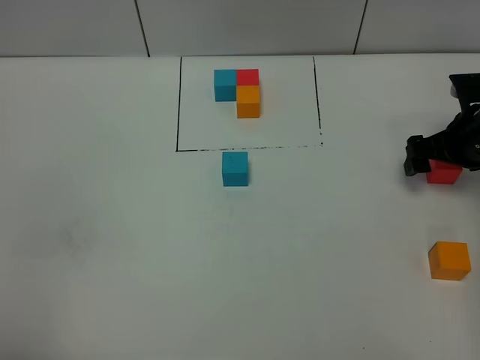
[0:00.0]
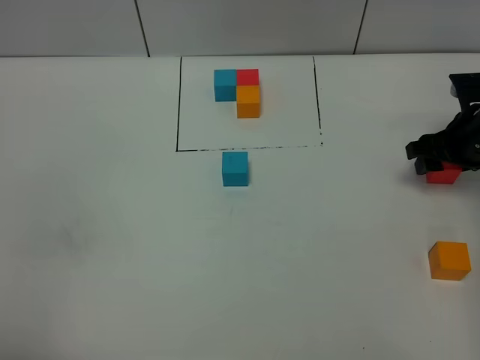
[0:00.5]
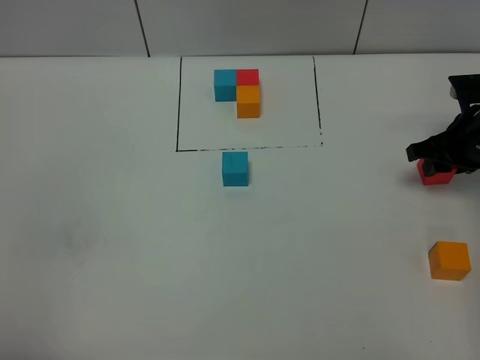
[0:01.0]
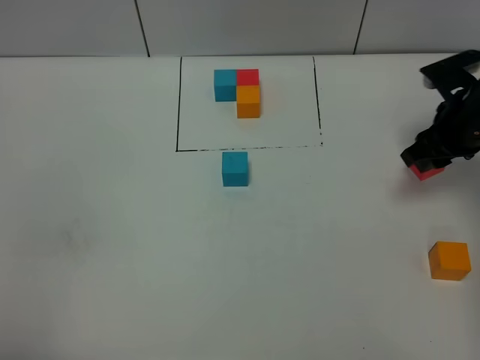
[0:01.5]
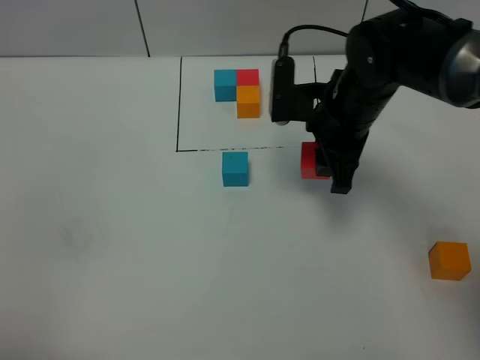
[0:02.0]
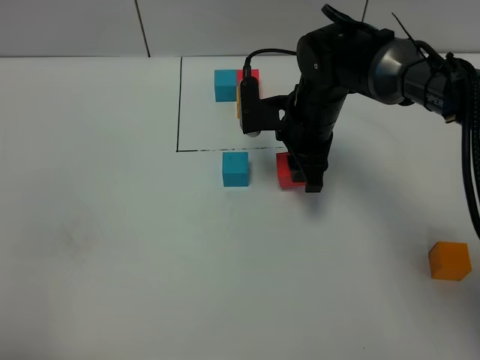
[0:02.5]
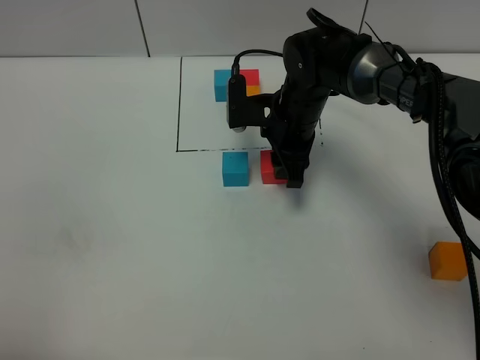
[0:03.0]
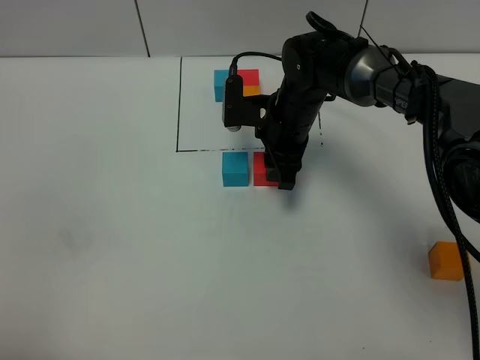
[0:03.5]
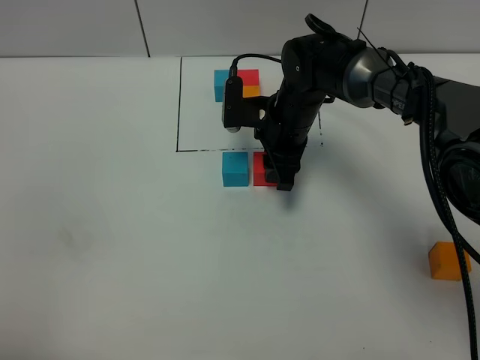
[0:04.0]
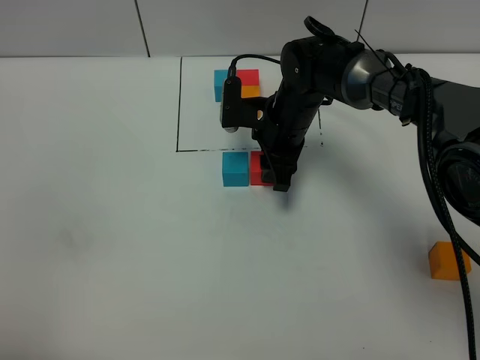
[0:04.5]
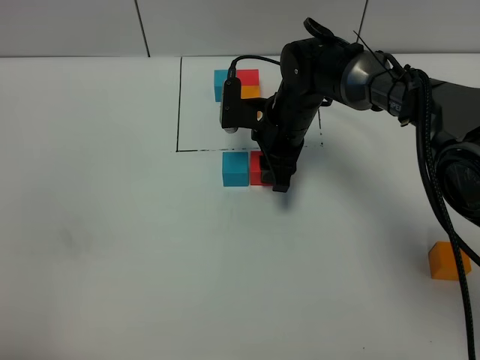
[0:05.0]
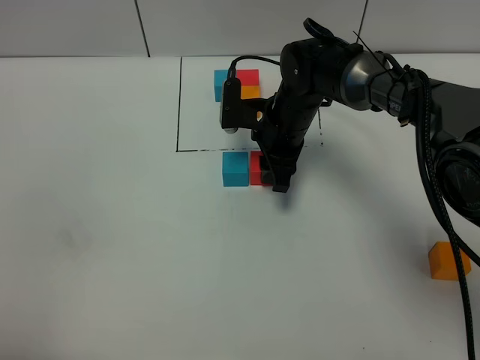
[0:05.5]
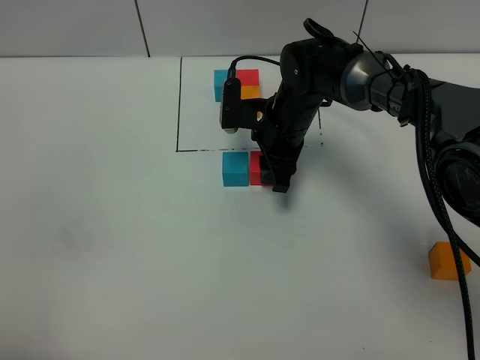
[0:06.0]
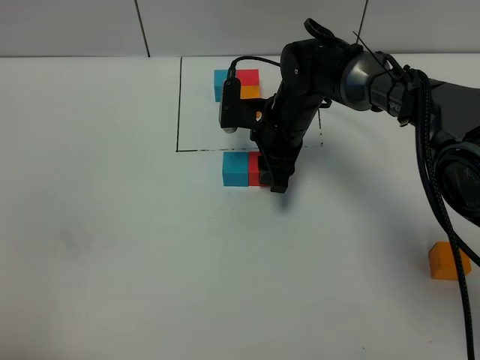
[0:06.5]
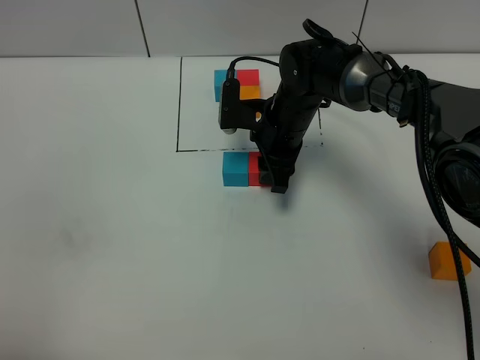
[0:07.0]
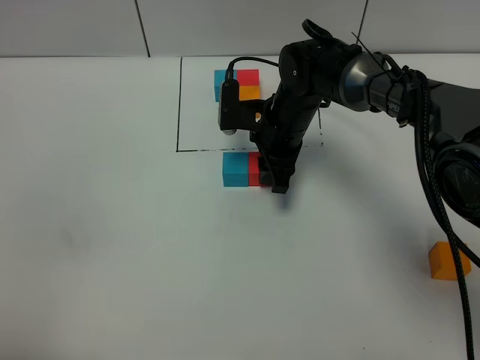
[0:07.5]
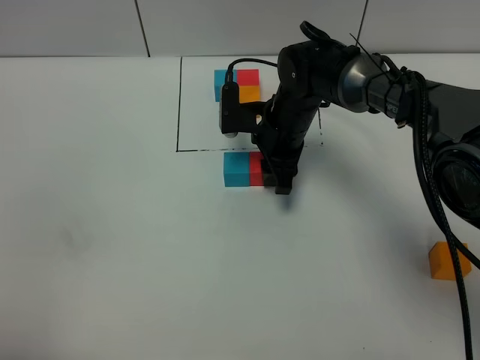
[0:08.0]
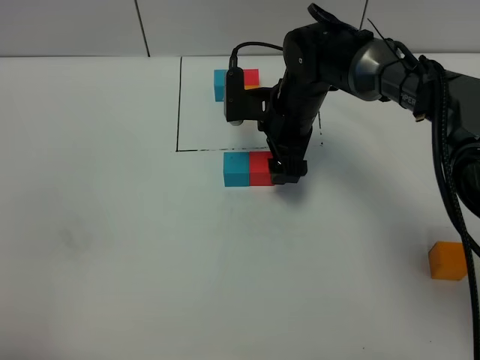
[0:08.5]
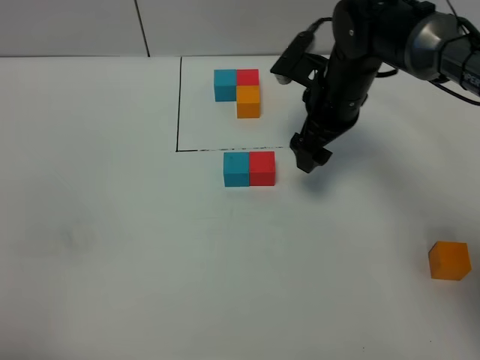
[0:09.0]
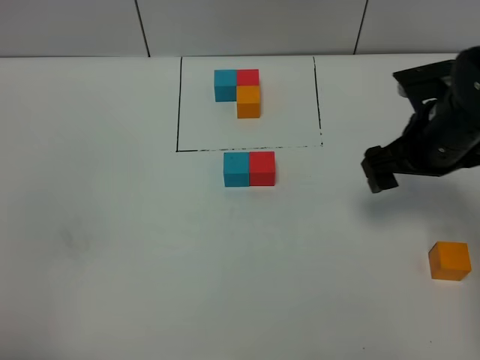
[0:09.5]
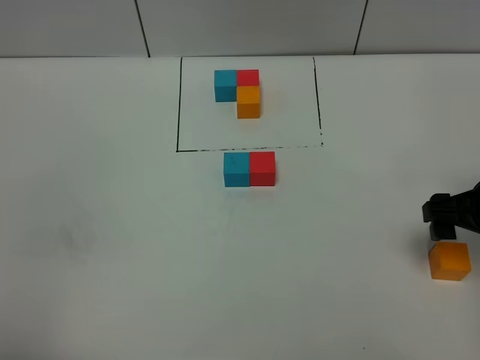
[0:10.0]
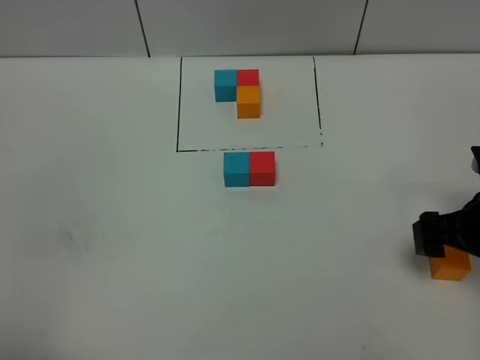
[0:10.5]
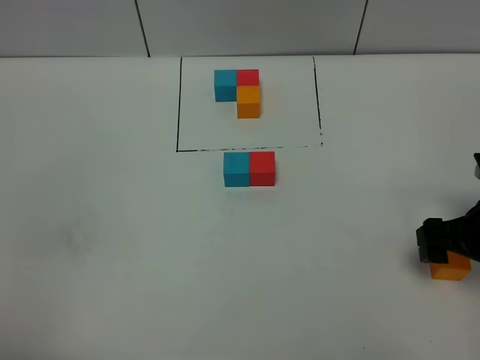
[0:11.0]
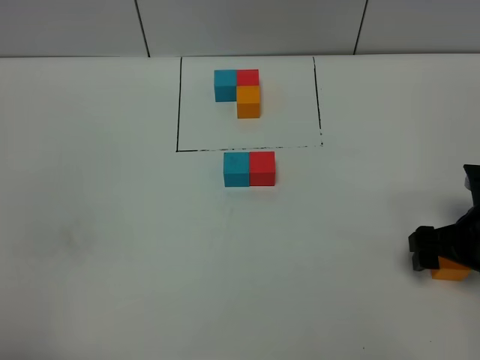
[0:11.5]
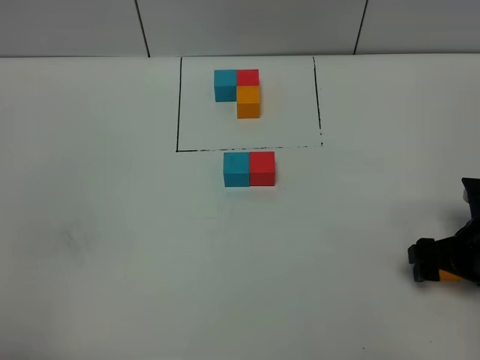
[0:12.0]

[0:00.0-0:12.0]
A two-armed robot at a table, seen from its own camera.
Task of the whole recording: According to the building block template in front, assemble the scattered blocks together.
Step, 0:00.0 to 0:08.0: Put the red build block on the right of the blue build block.
0:00.0 to 0:02.0: The right gripper goes about 20 cm to the left, and closes up.
0:02.0 to 0:04.0: The right gripper goes about 10 cm downward, forward and to the left.
0:04.0 to 0:08.0: Both grippers stay put.
0:08.0 to 0:10.0: The right gripper heads to the right and backward, covering some 30 cm, and opens.
0:10.0 to 0:12.0: The right gripper travels downward by approximately 5 cm.

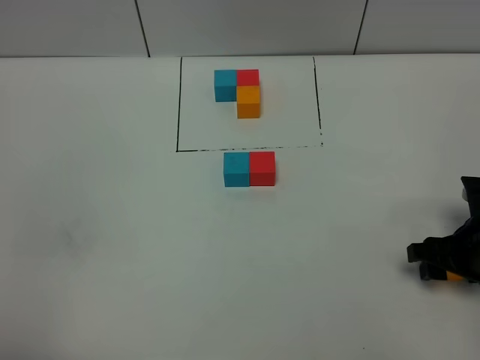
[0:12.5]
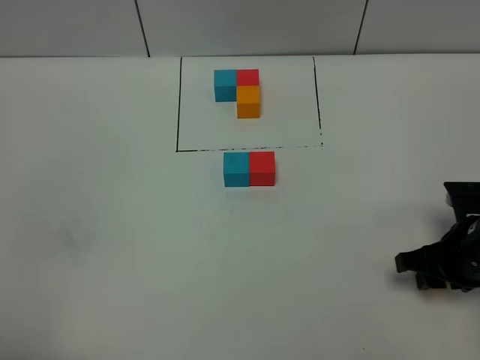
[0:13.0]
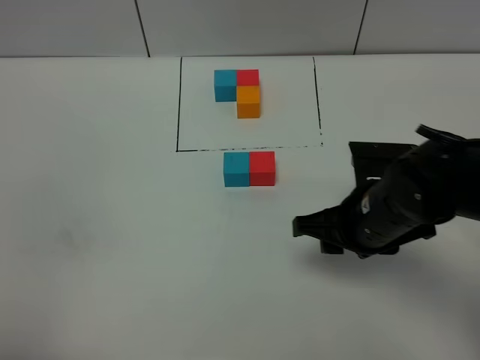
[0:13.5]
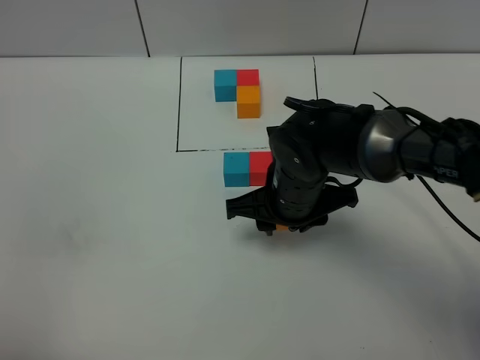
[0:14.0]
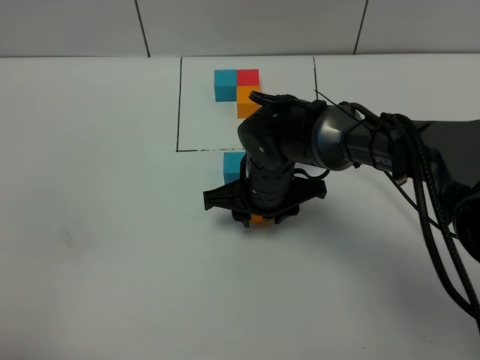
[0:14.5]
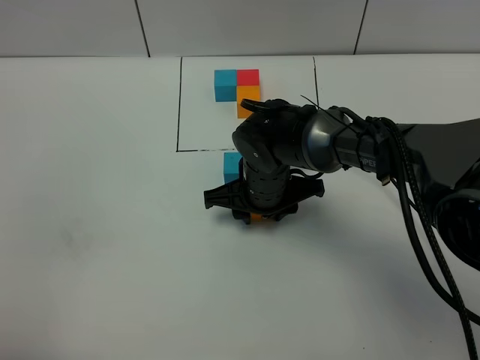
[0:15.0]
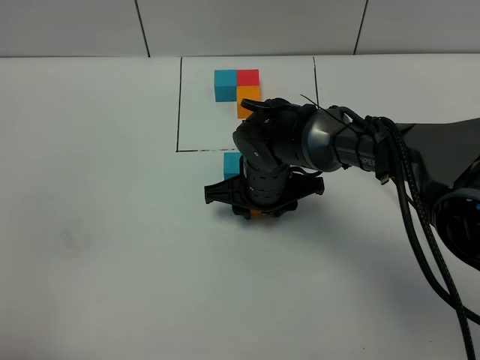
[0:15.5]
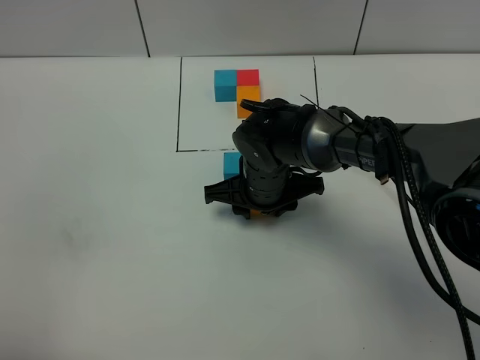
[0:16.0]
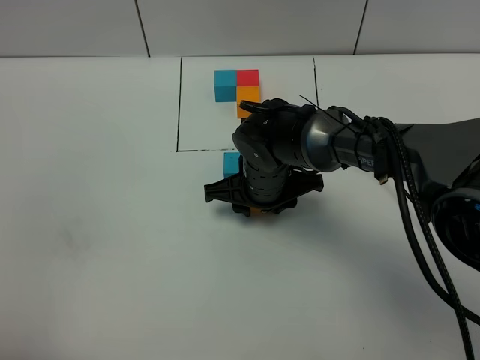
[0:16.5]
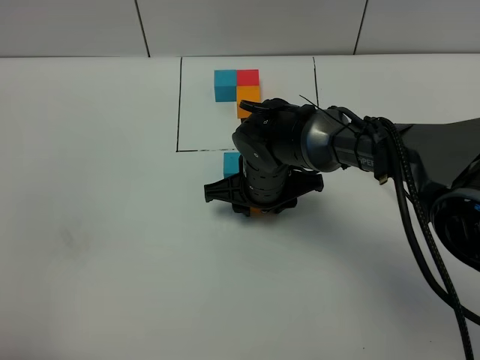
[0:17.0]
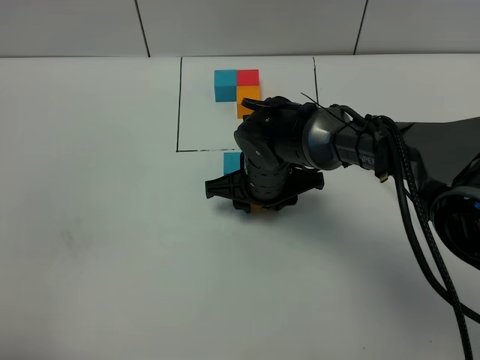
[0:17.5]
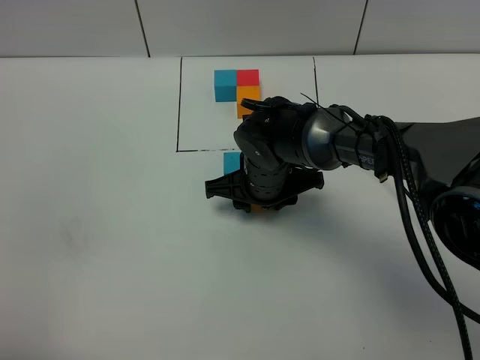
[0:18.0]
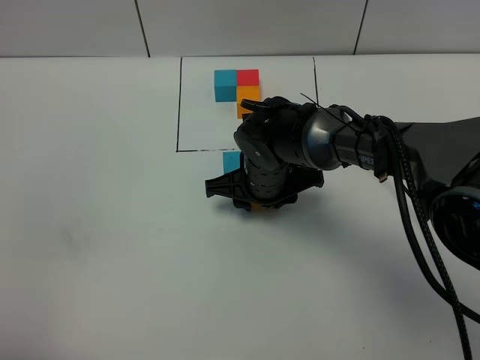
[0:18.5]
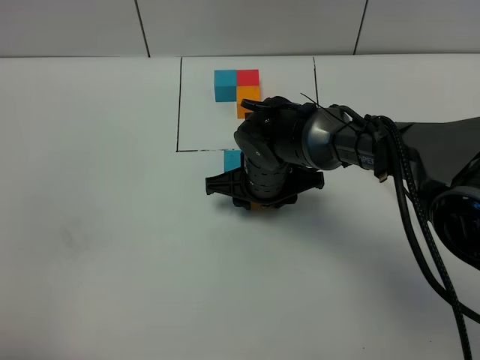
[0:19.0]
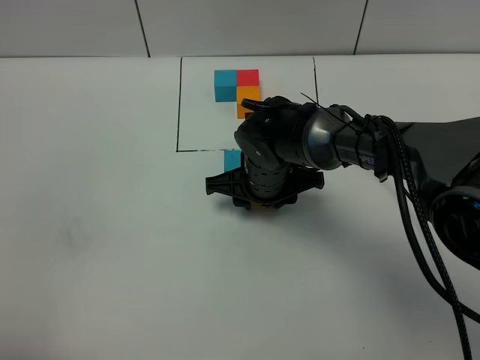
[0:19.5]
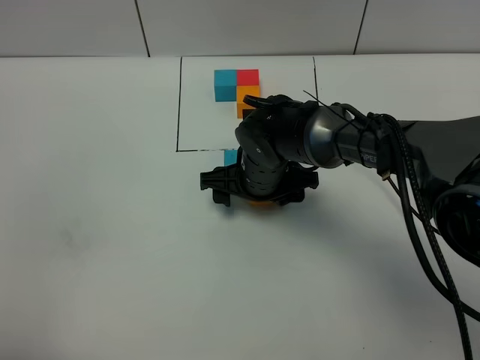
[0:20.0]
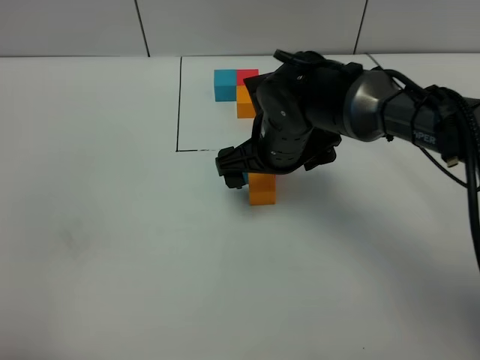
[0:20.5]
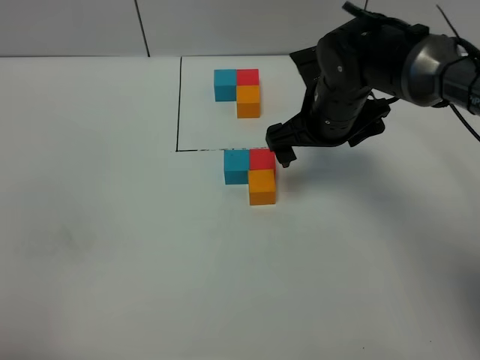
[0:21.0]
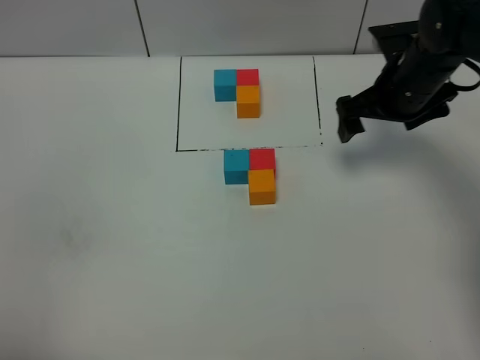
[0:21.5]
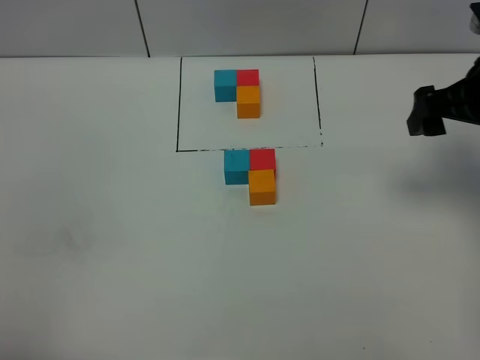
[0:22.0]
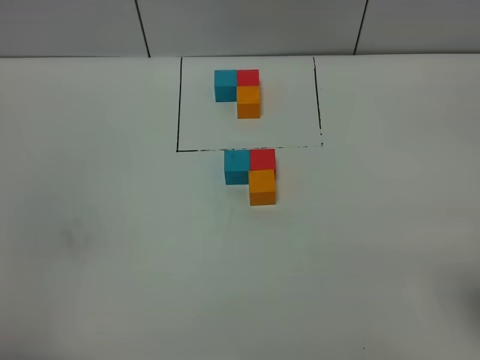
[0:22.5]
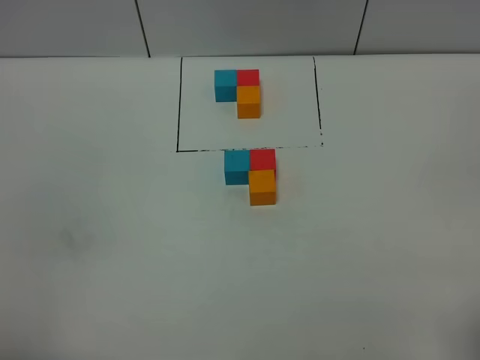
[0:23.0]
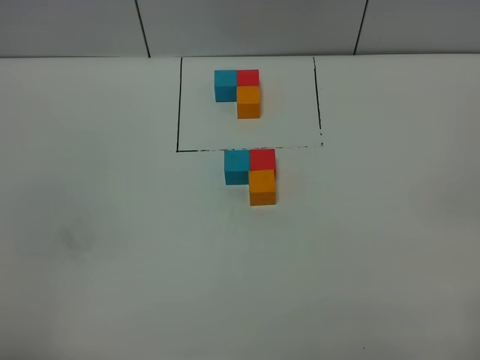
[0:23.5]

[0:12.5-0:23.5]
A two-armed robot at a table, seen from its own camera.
Task of the whole recording: According to the building block template in front, assemble the scattered blocks together.
Step, 0:12.5 to 0:20.0: Put the orange build block on the behind of the red build block.
0:12.5 to 0:14.5: The right gripper travels to the left by approximately 25 cm.
0:14.5 to 0:16.0: The grippers move only a little.
0:16.0 to 0:18.0: Both grippers stay put.
0:18.0 to 0:20.0: The right gripper opens up.
0:20.0 to 0:21.5: The right gripper is displaced to the right and upward by roughly 20 cm.
0:21.5 to 0:23.5: The right gripper travels backward by approximately 40 cm.

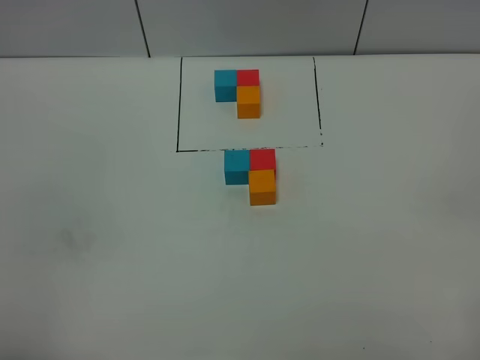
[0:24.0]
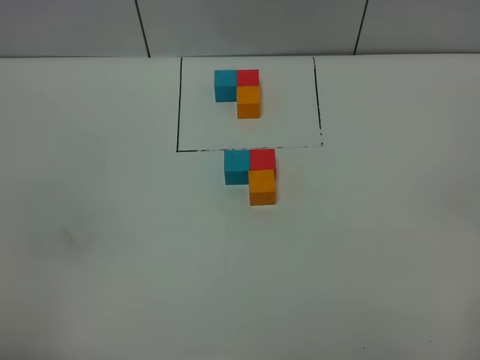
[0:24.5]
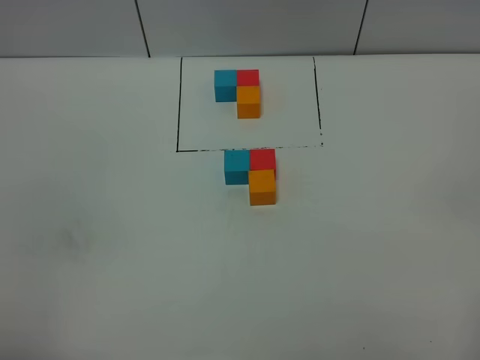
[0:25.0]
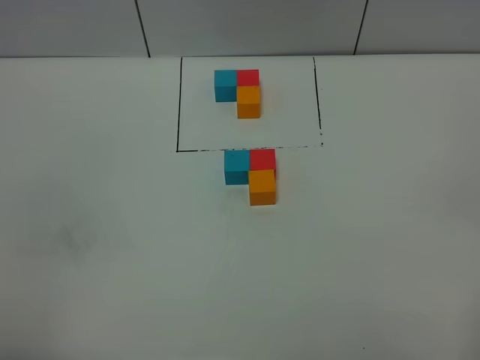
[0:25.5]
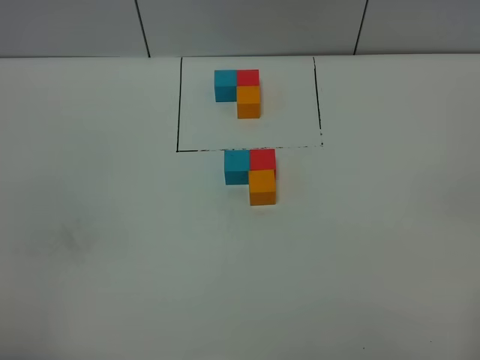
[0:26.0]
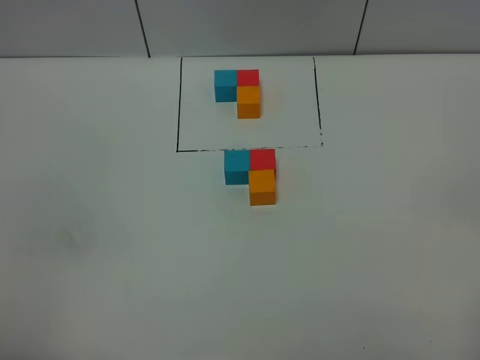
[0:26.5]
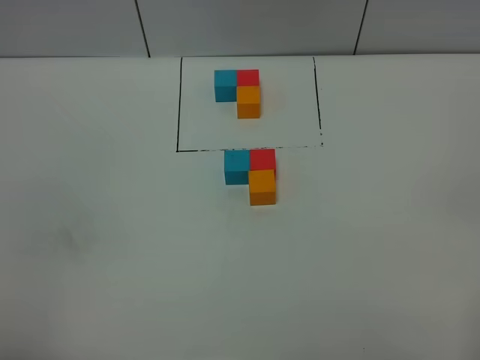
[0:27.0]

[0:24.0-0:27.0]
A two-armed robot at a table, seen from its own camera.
Task of the whole recording: According to the building block template in front, assemble the scattered blocks together.
0:25.5 to 0:27.0: Neither gripper changes place.
